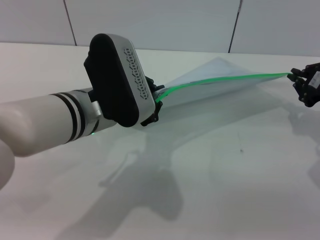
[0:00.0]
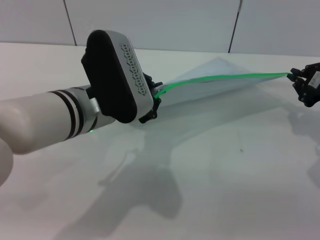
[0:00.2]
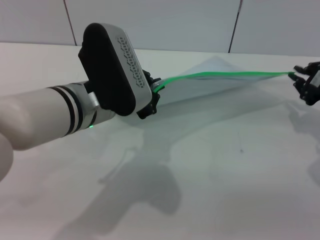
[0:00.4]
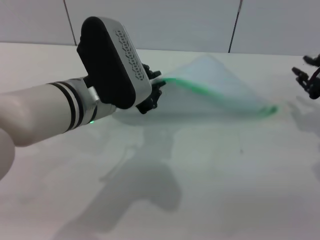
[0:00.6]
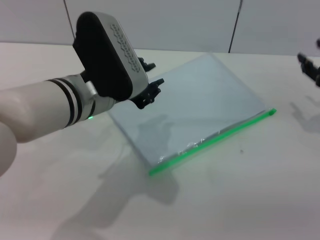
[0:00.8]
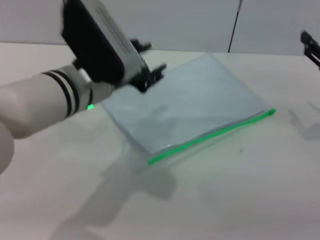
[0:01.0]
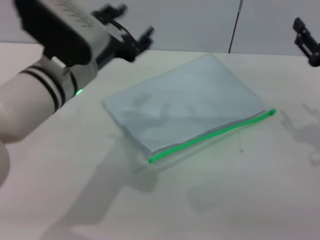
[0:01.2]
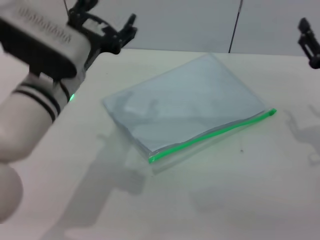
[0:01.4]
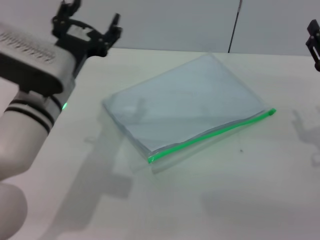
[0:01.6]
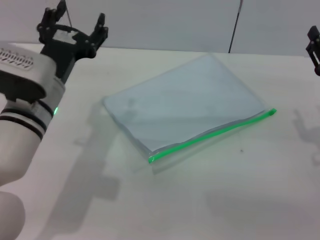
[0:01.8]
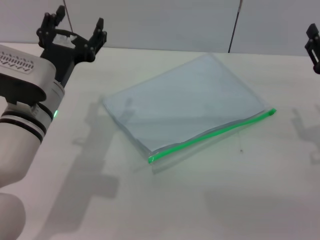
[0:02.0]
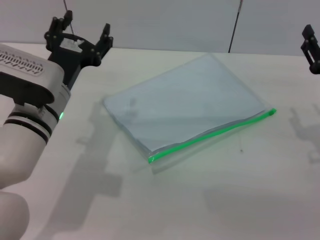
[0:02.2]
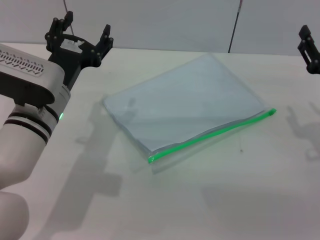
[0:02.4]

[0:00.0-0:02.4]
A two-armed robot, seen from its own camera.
Step, 0:01.0 to 0:01.6: Place the transparent plastic bag.
0:00.0 to 0:01.2: The right gripper shifts by approximately 5 cm, and opens its fingers; the left gripper opens.
0:01.2 to 0:02.4: The left gripper shifts some 5 cm downward.
